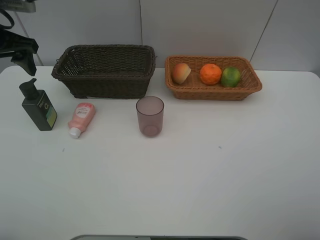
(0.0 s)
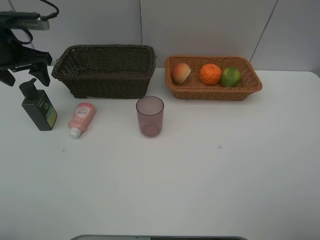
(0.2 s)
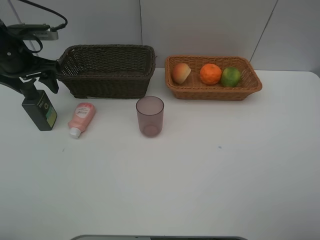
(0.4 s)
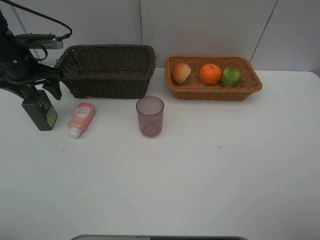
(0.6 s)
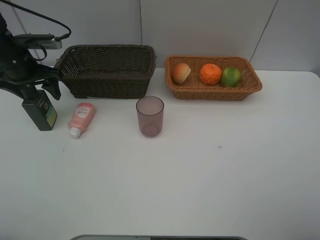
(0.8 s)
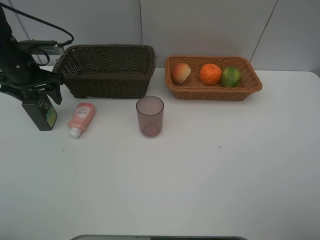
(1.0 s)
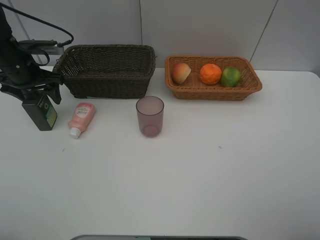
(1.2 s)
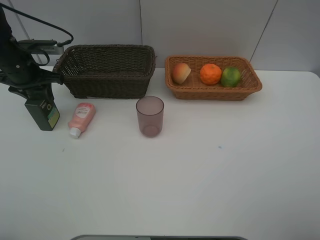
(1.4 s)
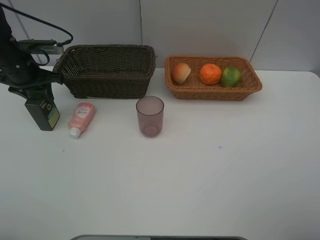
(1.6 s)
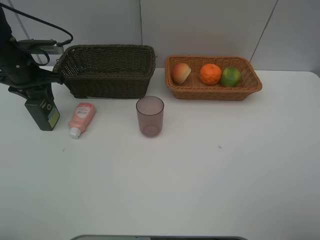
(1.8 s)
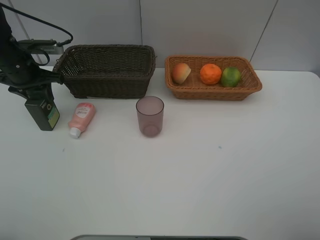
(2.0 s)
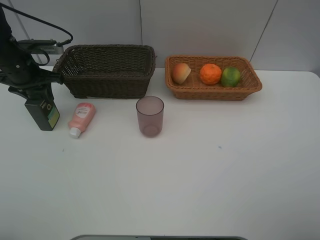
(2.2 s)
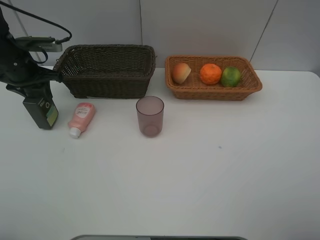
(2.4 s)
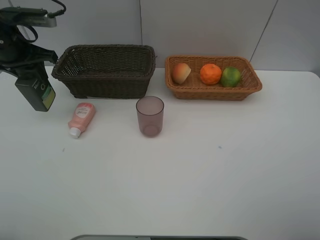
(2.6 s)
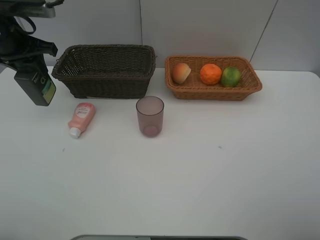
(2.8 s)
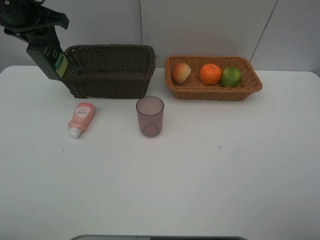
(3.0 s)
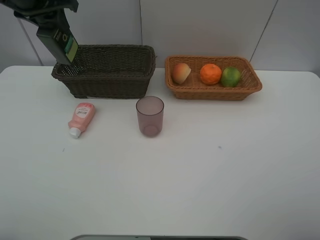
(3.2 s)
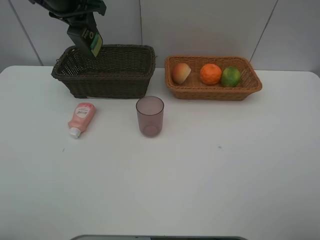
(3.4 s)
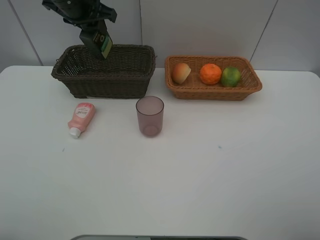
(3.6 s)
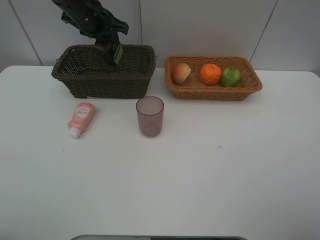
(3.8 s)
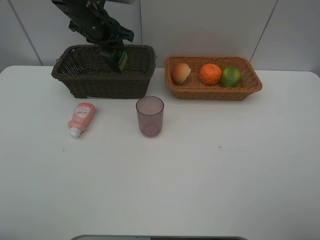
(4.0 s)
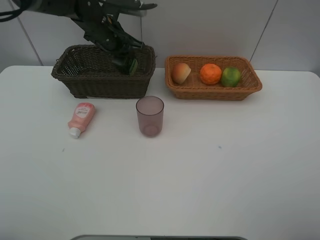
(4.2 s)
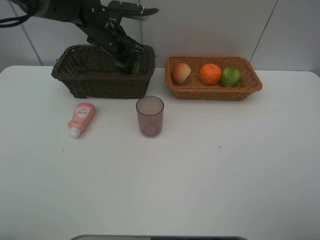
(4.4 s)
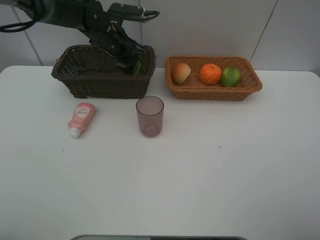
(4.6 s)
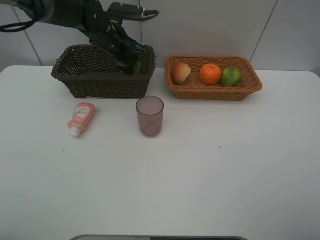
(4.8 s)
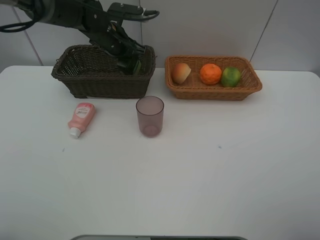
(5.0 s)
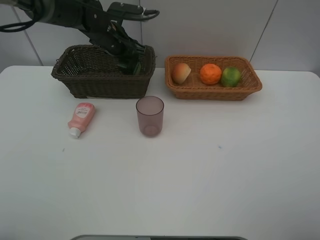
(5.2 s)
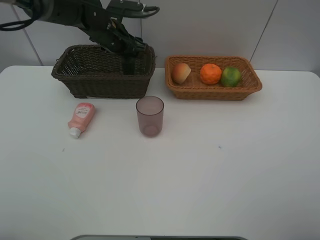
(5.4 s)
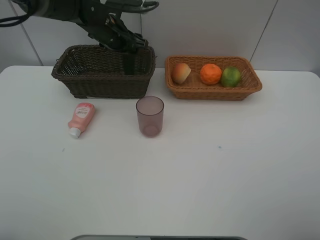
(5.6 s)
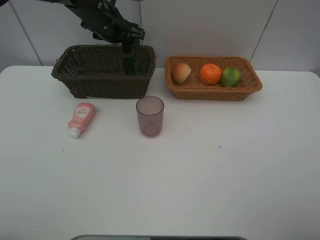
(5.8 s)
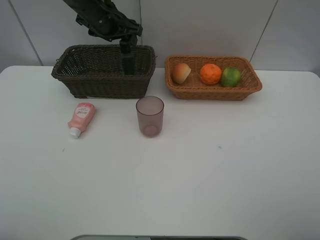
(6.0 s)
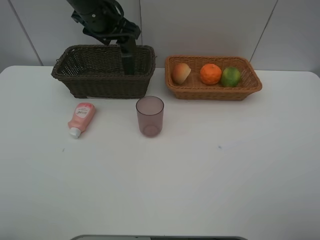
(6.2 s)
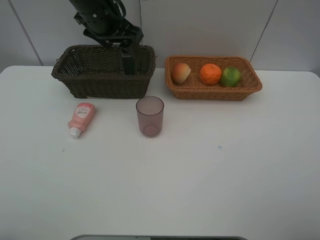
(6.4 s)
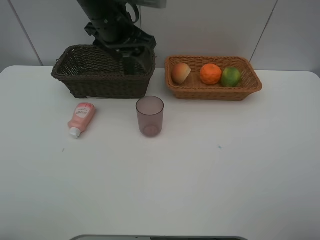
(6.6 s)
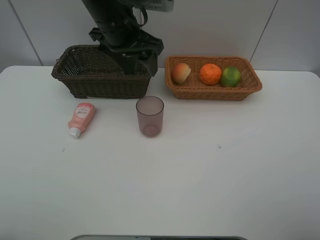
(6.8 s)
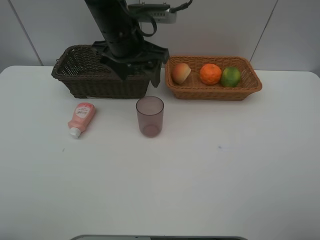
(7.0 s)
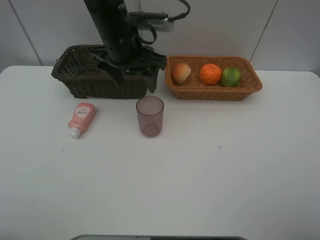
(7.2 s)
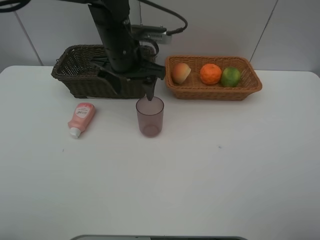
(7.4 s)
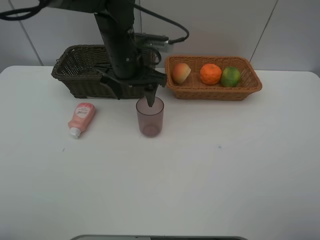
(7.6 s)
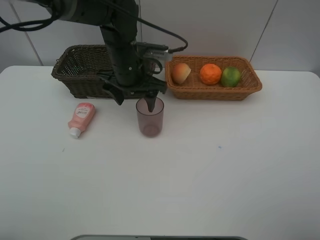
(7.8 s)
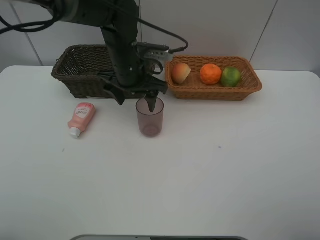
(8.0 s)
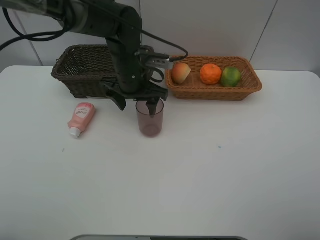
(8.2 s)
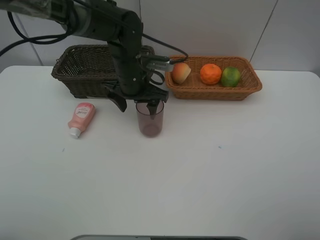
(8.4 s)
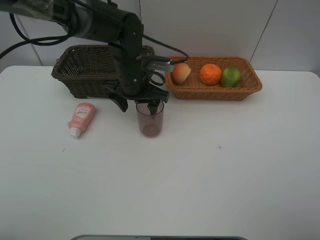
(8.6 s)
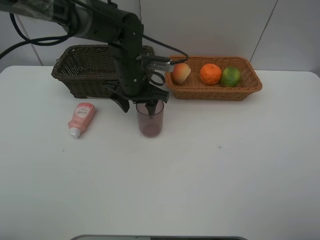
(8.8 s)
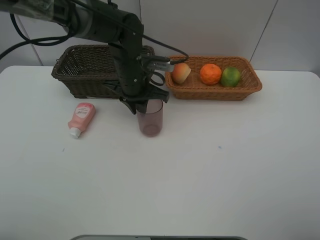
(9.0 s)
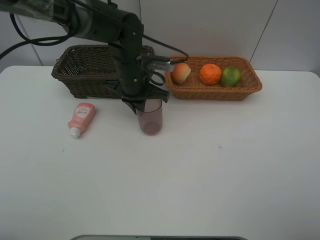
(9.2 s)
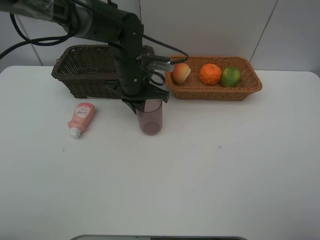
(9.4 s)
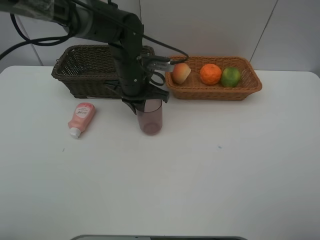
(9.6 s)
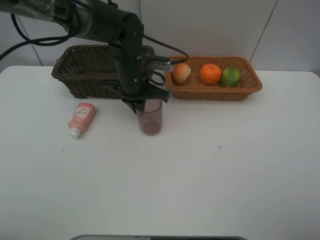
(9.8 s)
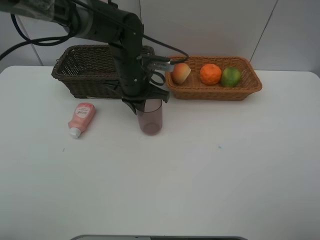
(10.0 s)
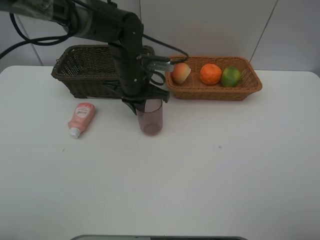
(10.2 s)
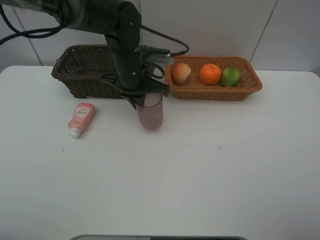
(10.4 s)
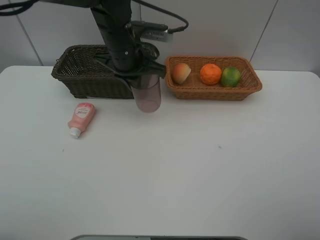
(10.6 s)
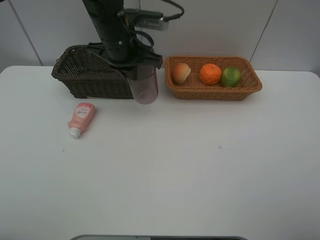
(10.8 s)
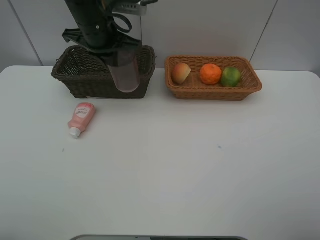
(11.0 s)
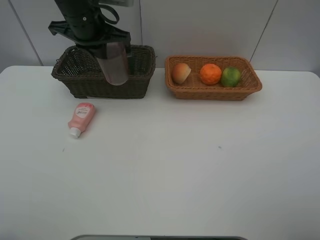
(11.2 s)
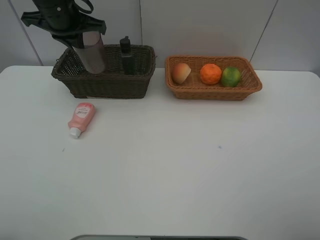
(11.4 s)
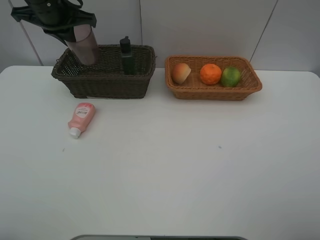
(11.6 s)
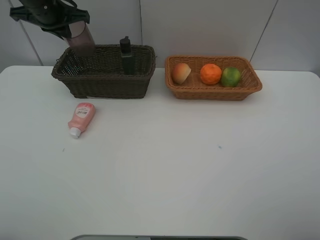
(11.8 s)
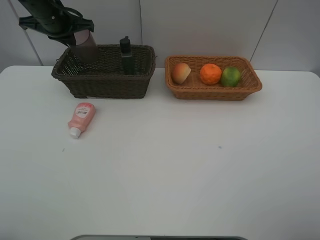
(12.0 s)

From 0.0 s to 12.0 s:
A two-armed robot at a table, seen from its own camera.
Task of the whole recording: place multiple objects separately in different baskets.
From 0.0 s to 1.6 s: The left gripper goes some 10 cm downward, and closes its fingers.
From 1.6 s to 3.0 s: The left gripper travels upward and to the right by some 15 cm.
From 3.0 s to 4.4 s: The left gripper moves to the right, downward and forward, about 20 cm.
From 4.4 s to 6.0 s: The left gripper heads upward, covering about 5 cm, and opens its fingers.
From 6.0 s to 7.6 s: The left gripper travels backward, to the right and downward by roughly 10 cm.
From 7.6 s to 9.0 s: The left gripper changes place by some 5 cm, and closes.
From 9.0 s to 10.4 s: The grippers move only a little.
From 10.4 s to 12.0 s: The left gripper shifts about 20 cm to the left and forward.

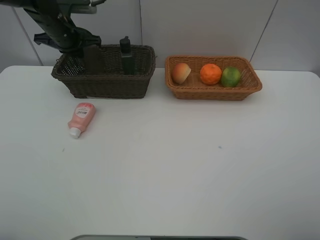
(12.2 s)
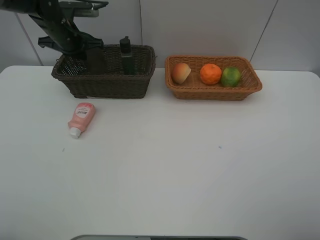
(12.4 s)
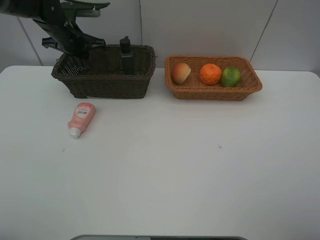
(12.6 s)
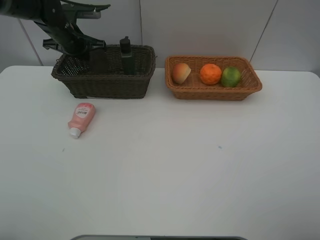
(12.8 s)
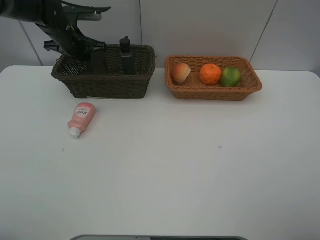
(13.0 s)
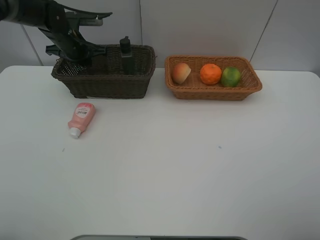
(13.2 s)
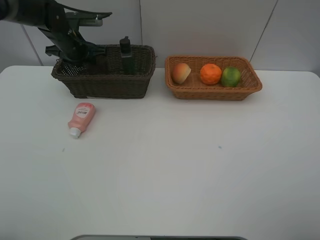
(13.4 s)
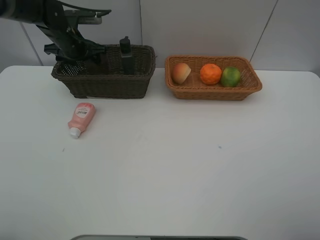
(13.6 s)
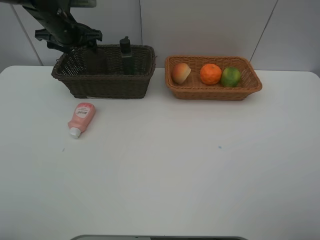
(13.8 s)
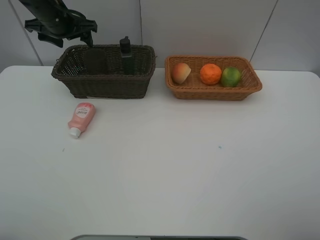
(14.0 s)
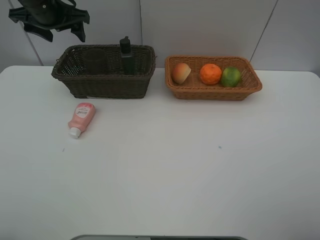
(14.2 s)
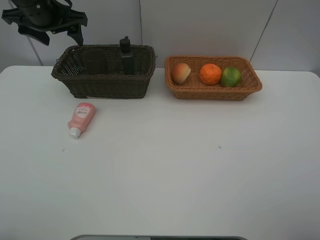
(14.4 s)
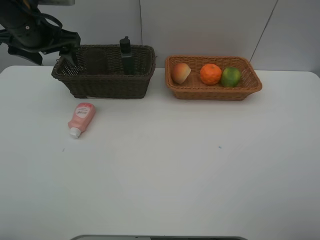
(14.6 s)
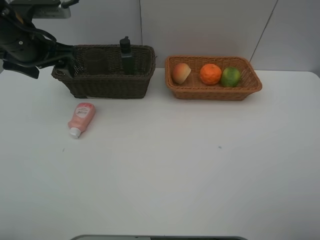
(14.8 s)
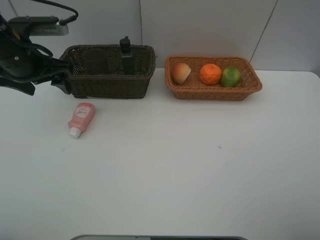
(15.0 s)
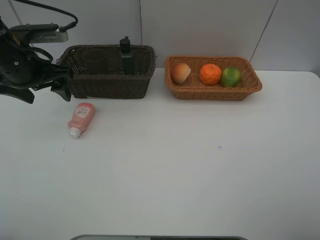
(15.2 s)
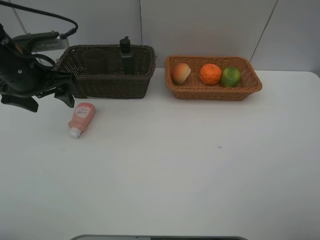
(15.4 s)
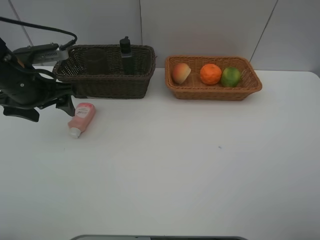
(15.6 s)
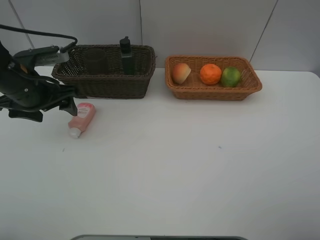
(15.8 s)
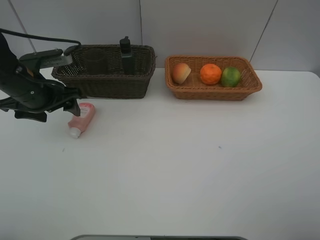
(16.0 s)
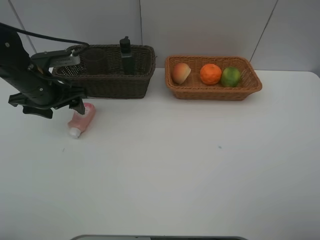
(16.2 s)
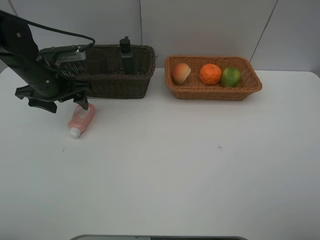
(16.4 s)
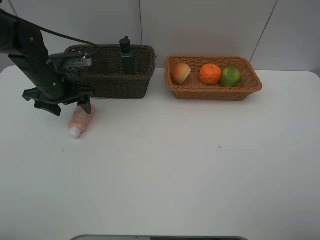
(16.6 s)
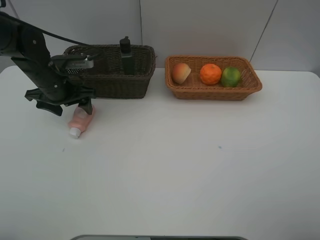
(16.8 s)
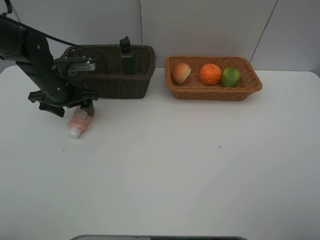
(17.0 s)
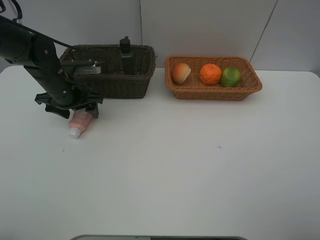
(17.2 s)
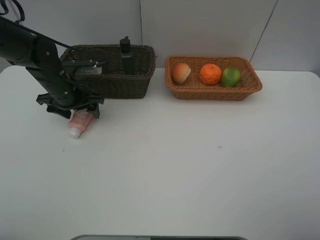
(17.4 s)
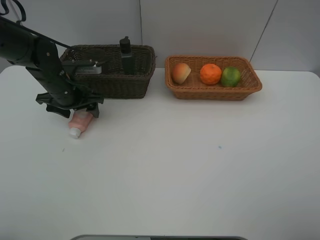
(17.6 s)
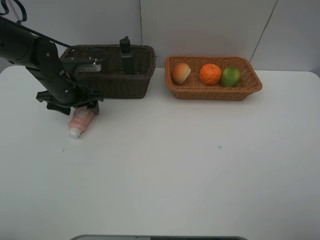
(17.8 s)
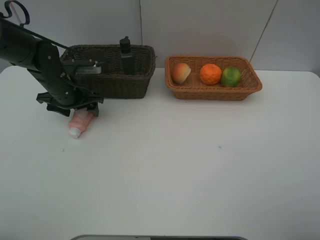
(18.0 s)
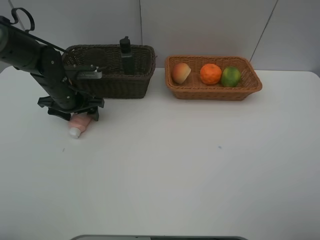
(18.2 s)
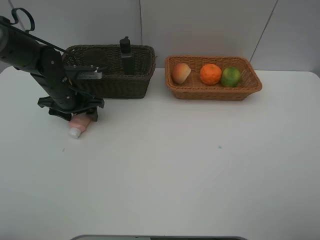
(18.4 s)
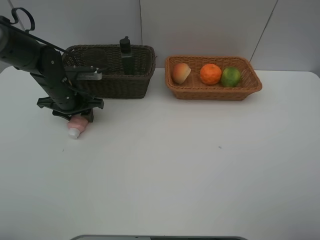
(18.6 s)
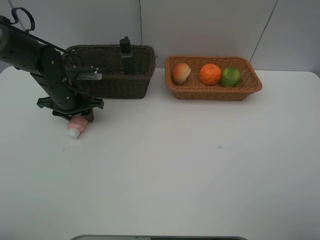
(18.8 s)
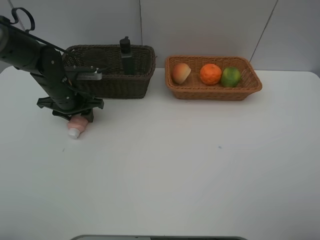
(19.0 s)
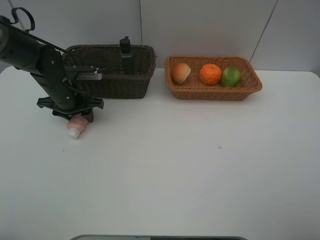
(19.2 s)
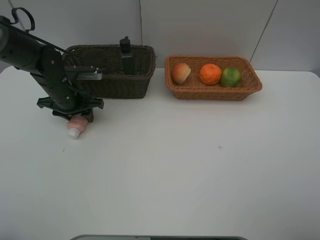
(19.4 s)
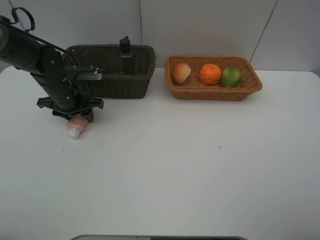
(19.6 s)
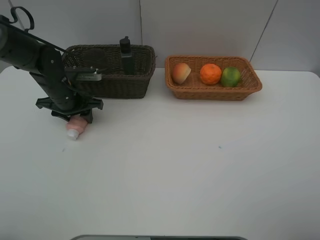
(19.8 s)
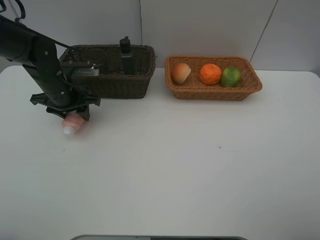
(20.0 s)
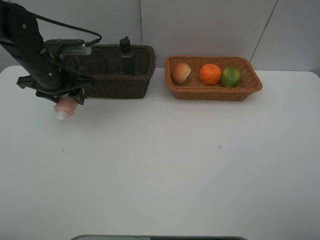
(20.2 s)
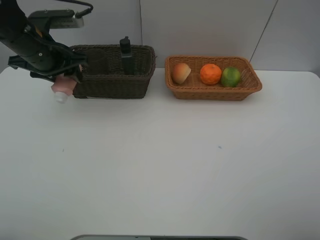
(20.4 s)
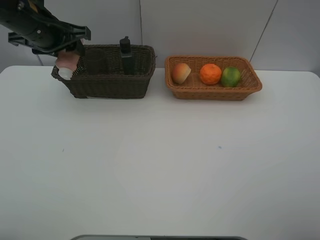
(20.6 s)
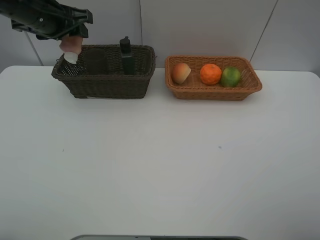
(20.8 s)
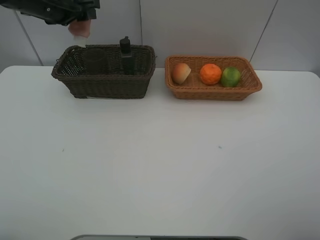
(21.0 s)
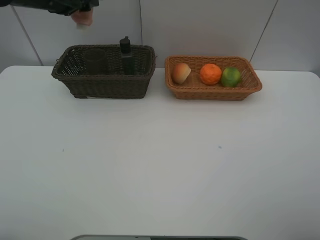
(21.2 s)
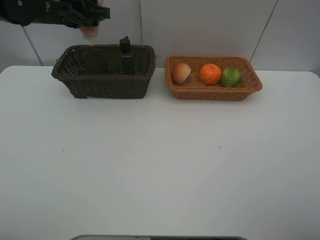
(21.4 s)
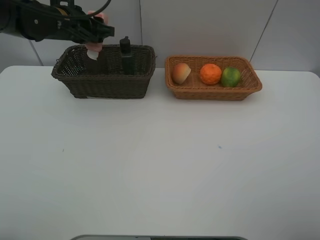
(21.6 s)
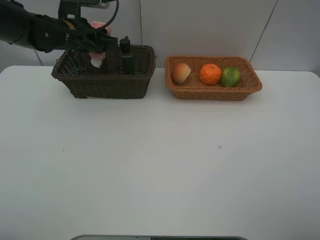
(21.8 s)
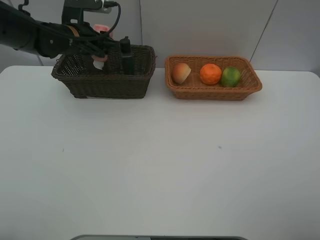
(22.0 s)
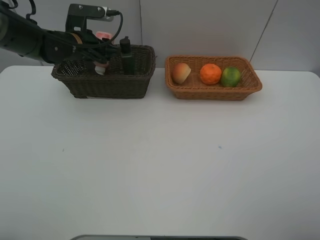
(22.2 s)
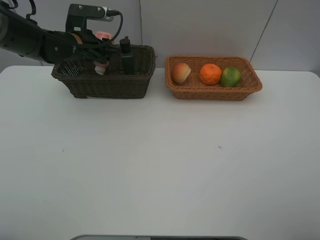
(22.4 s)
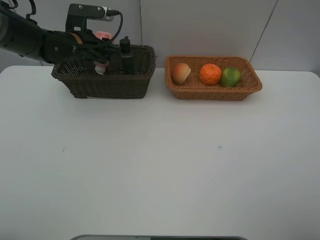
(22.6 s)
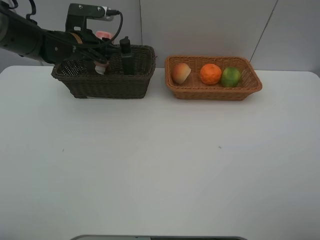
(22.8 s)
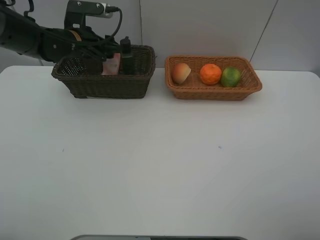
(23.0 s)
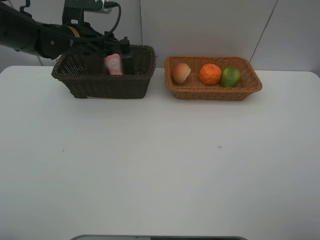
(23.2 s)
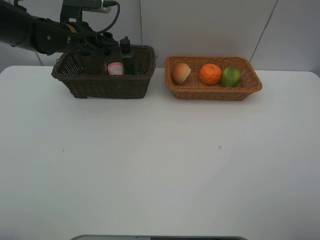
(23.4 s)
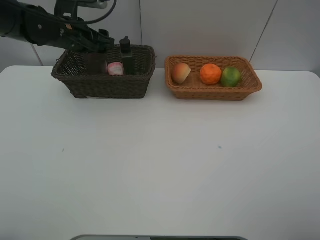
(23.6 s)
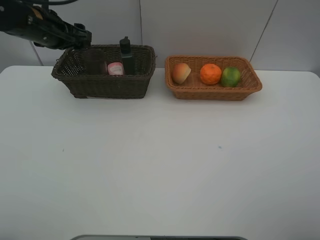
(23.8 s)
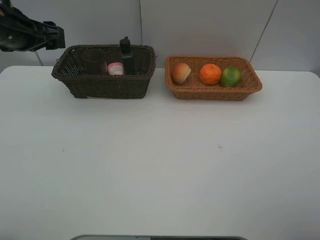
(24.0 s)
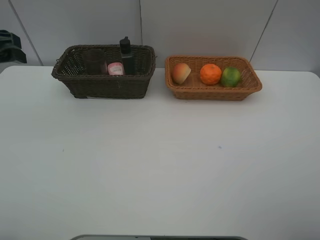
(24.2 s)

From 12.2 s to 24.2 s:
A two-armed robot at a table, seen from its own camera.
Task of the whole recording: place multiple objects separately in different baskets.
From 12.2 s to 13.8 s: The left gripper opens up.
From 13.8 s to 15.2 s: The left gripper goes about 15 cm backward.
From 15.2 s to 16.6 s: The left gripper travels downward by roughly 10 cm.
From 16.6 s to 18.2 s: The grippers move only a little.
From 18.2 s to 19.8 s: The two grippers keep their place.
From 19.8 s to 21.2 s: The left gripper goes roughly 20 cm upward.
From 21.2 s to 22.6 s: The left gripper goes some 10 cm downward.
From 22.6 s to 24.2 s: The left gripper heads backward, to the left and upward, covering some 25 cm.
